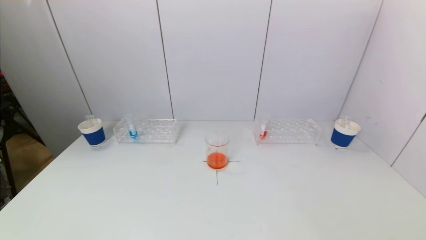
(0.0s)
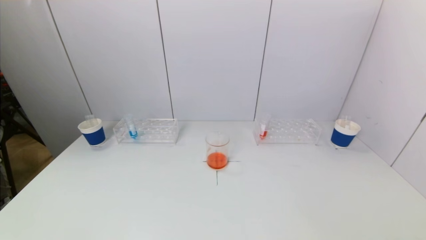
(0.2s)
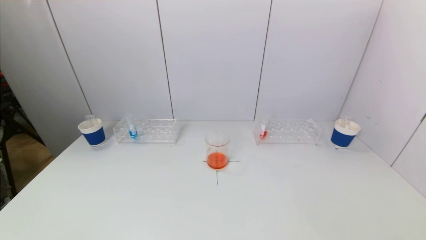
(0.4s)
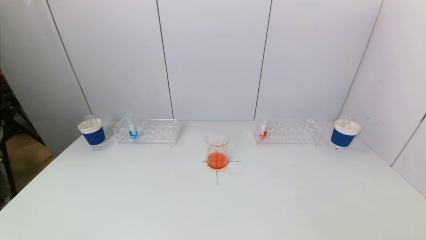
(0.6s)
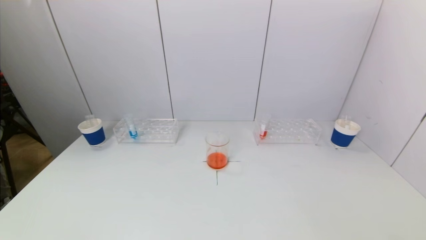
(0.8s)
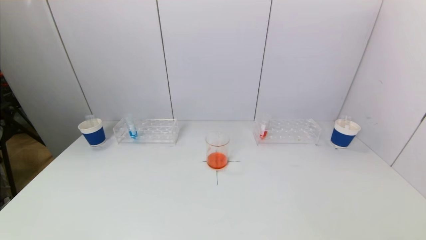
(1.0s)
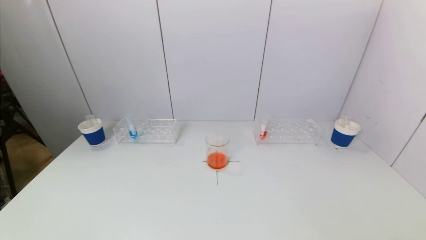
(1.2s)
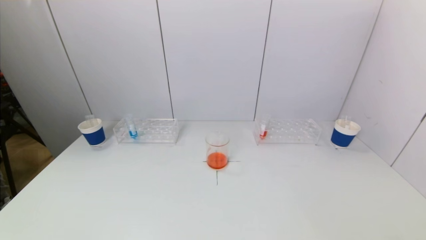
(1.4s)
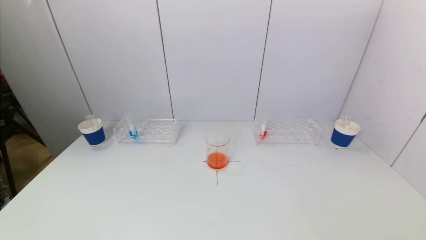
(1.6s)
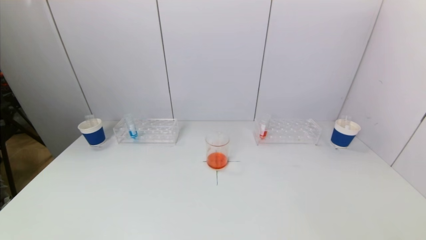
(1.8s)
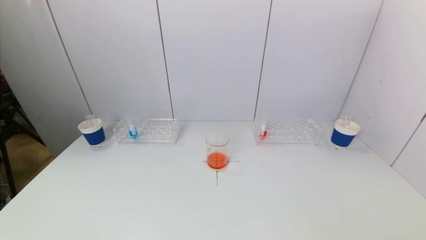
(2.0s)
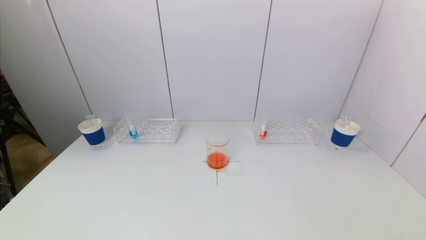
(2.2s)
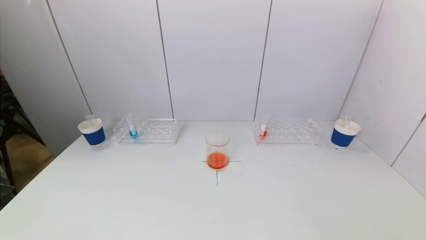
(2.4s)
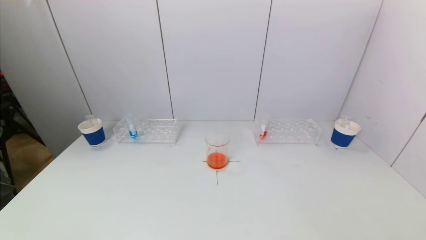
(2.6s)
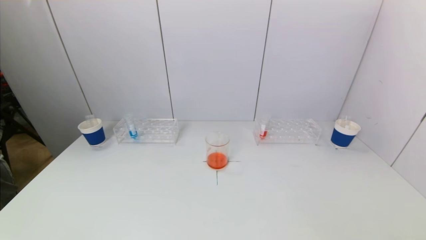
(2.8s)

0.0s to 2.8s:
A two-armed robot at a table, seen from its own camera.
Task of the whole recording: pick up a test tube with pigment on left test tube rack and a test tube with pigment on right test tube rack by grippers and pour them into the beaker.
1.4s to 2.8s: Neither gripper changes place.

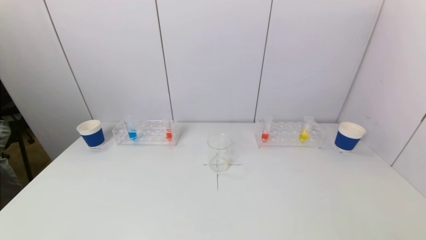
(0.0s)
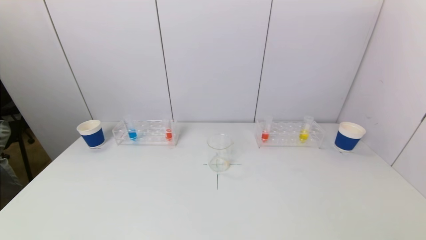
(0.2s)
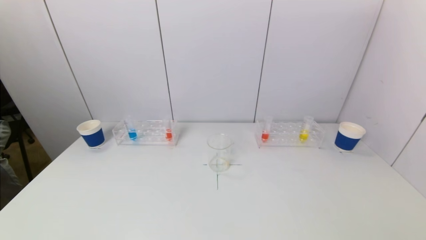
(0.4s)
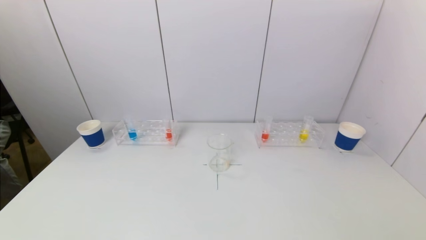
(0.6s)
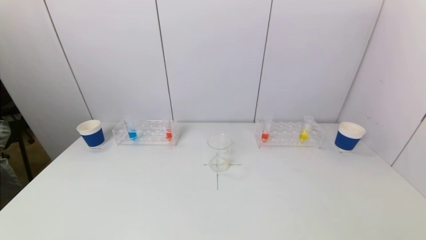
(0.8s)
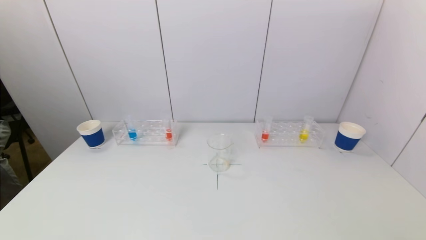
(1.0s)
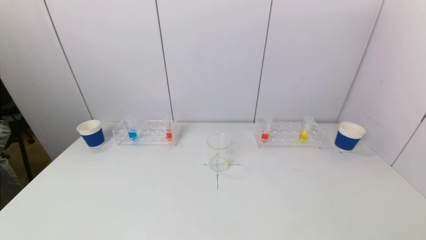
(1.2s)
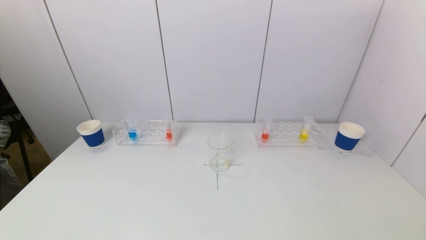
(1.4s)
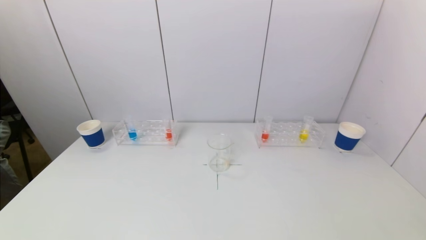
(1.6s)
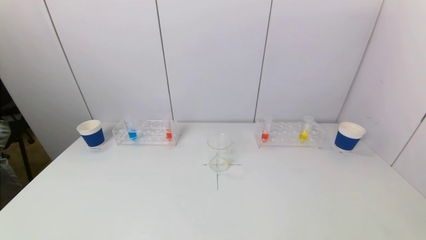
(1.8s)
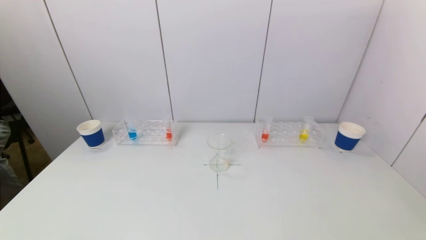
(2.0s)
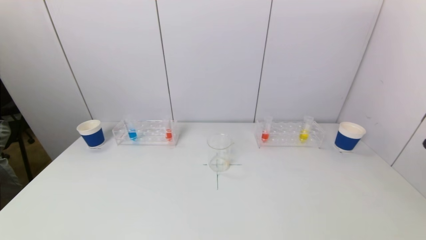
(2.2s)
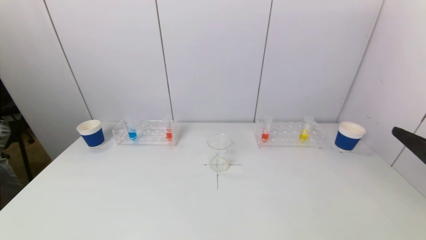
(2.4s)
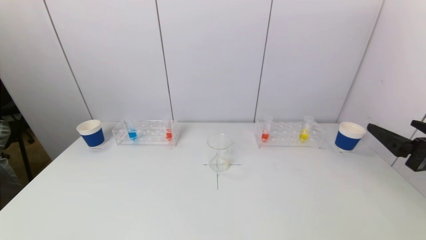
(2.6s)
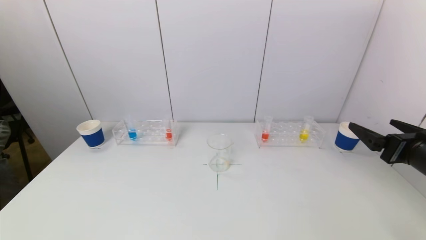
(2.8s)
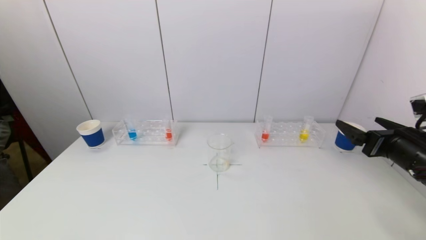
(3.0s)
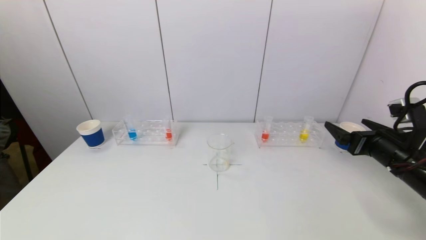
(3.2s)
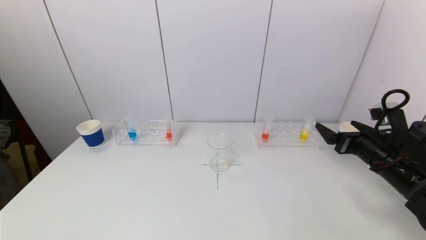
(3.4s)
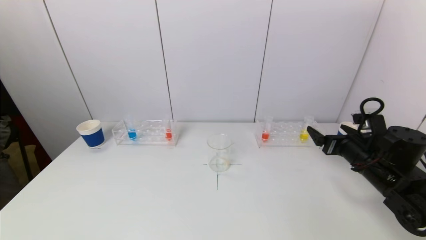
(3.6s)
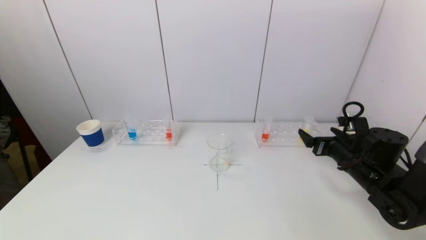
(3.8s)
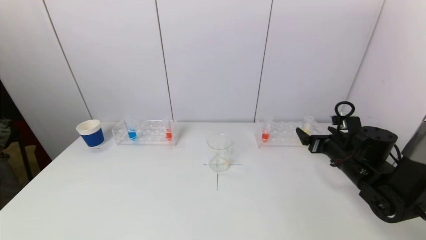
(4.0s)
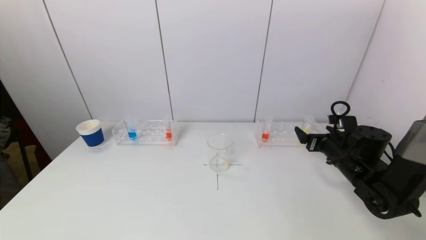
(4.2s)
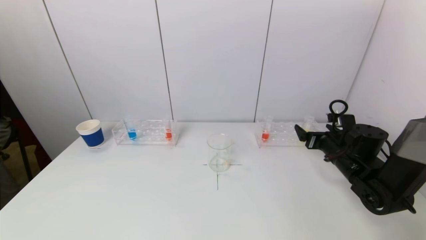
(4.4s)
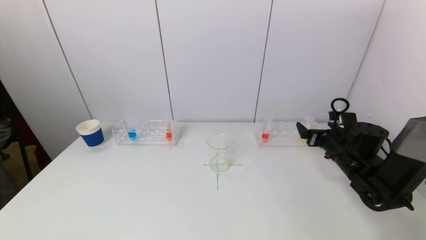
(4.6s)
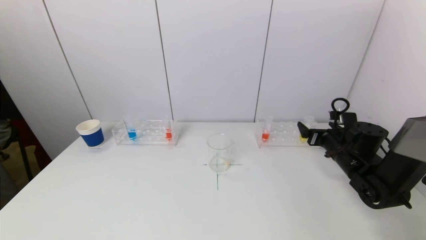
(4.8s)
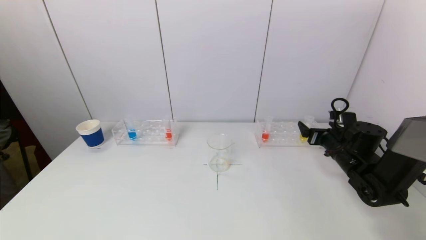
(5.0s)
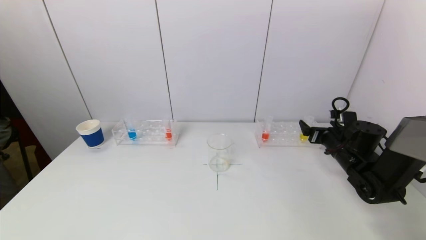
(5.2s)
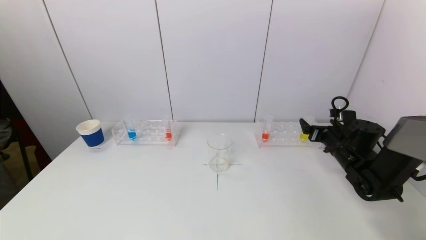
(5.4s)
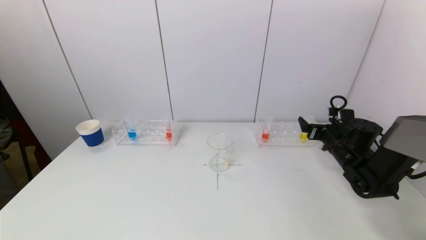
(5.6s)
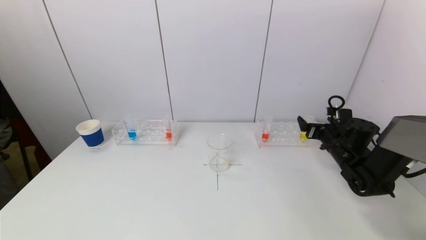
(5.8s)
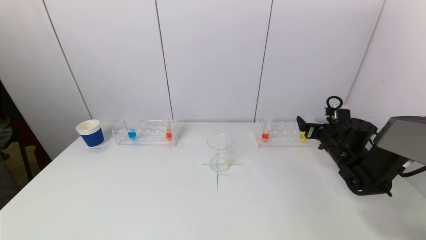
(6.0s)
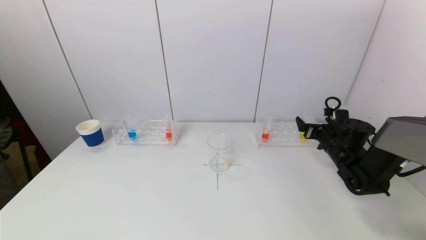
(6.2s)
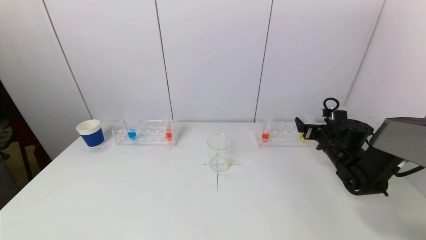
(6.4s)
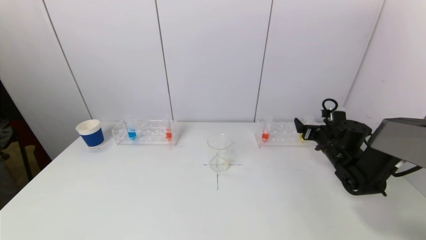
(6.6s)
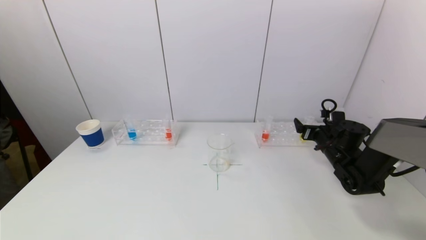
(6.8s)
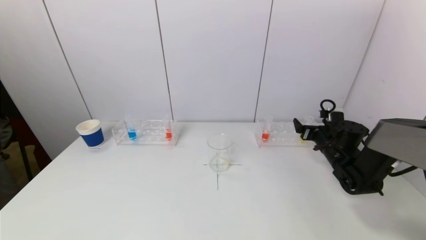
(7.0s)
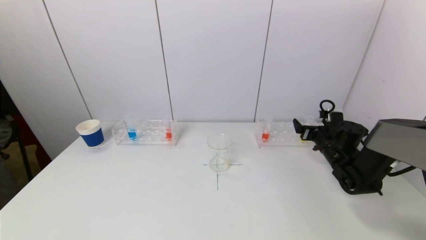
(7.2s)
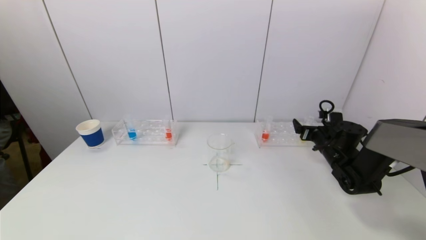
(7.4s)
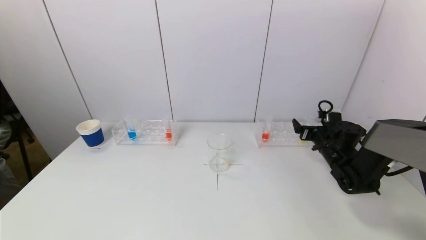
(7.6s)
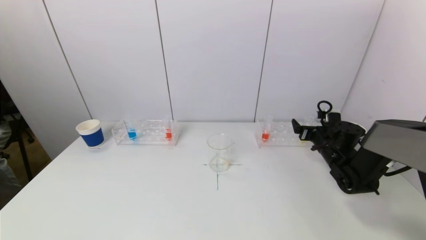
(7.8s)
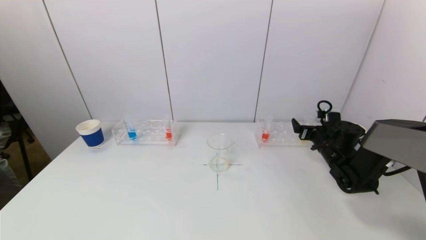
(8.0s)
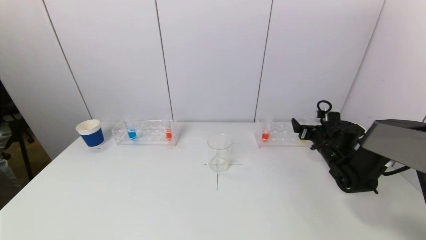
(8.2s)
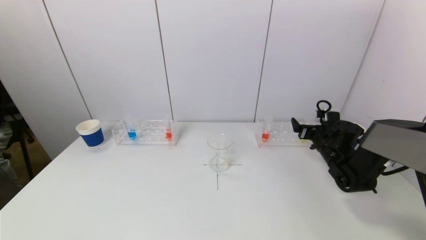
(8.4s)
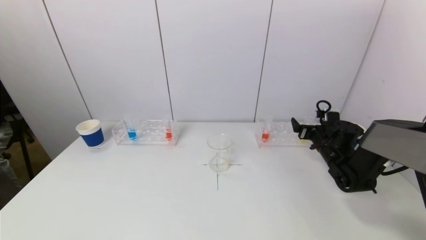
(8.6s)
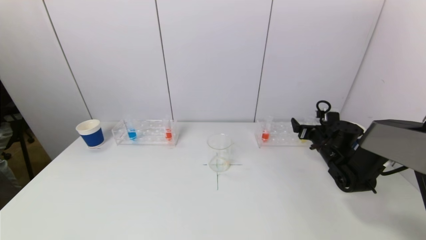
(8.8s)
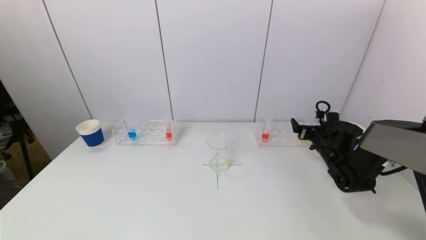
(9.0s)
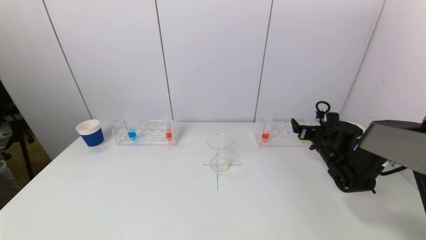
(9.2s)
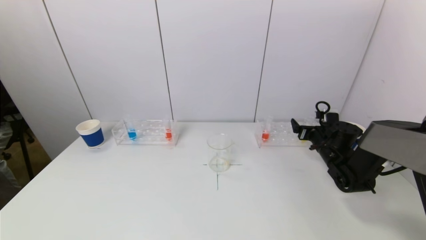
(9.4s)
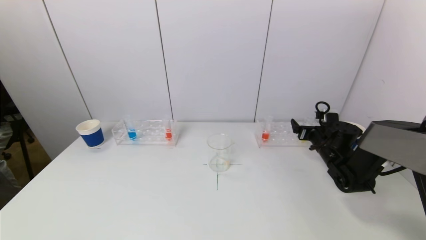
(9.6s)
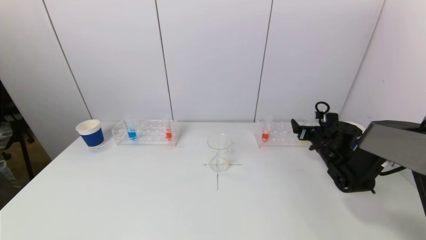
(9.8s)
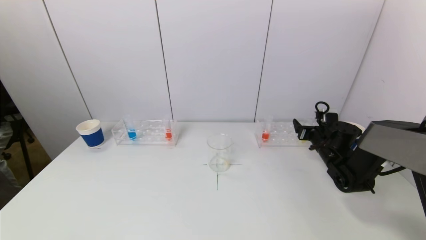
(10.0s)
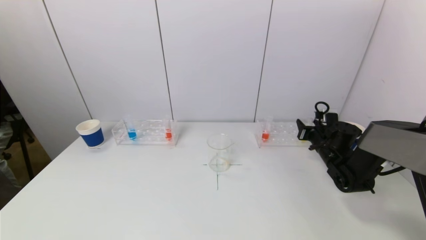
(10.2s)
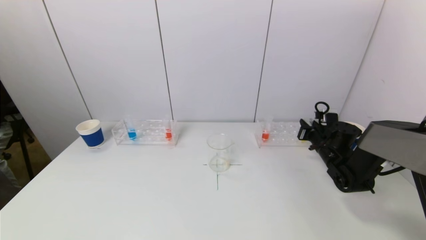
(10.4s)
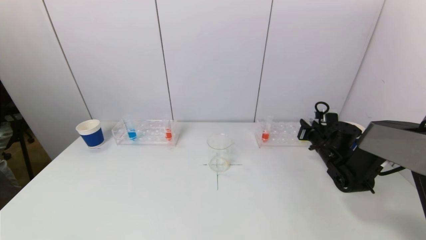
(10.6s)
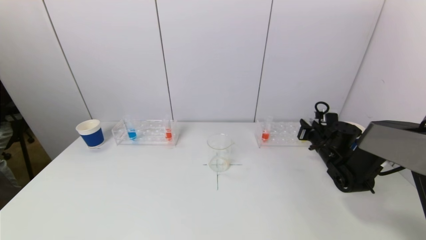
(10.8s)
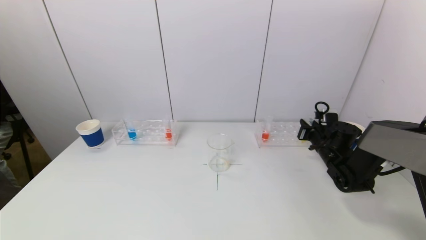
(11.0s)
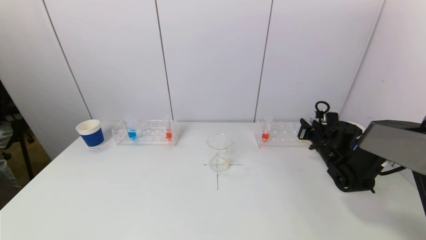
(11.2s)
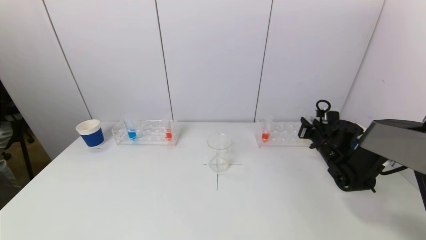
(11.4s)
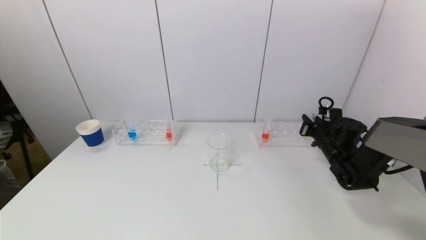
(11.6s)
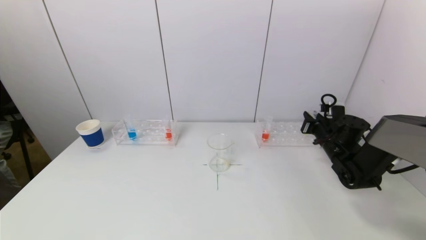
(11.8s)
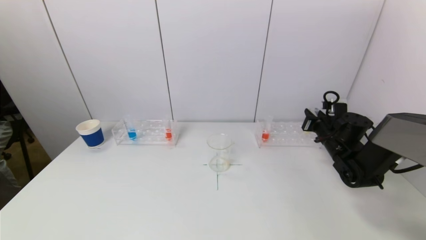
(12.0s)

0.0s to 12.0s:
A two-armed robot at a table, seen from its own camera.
Task of the whole recording: pick up a test tube with pigment on left test tube rack and a test tube with pigment on right test tube rack by grippers and pour them into the beaker.
Step, 0.0s to 10.6s: Grasp the yellow reagent with the right gripper.
1.6s to 3.0s: The right gripper travels forward by some 25 cm.
3.0s to 4.4s: The right gripper is displaced forward and downward by about 15 cm.
4.4s to 6.0s: The right gripper shifts approximately 5 cm forward.
6.0s to 7.6s: The grippers make only small movements.
7.6s to 9.0s: The two grippers keep their place.
9.0s to 10.4s: The right gripper closes.
10.4s to 12.0s: The grippers stay close to where they were, moving slightly.

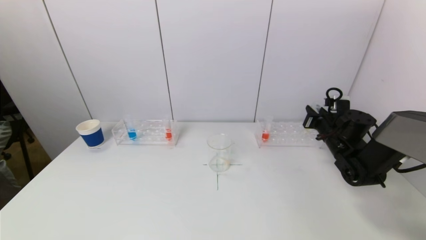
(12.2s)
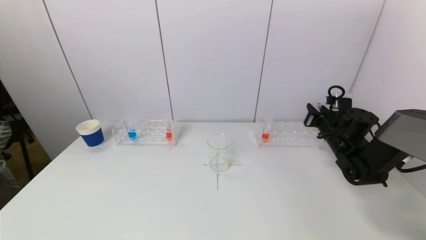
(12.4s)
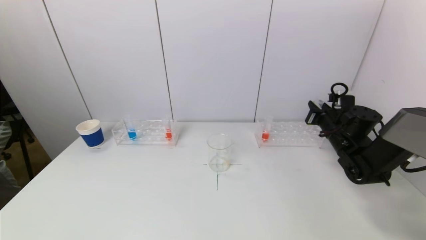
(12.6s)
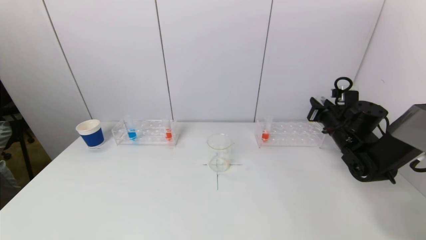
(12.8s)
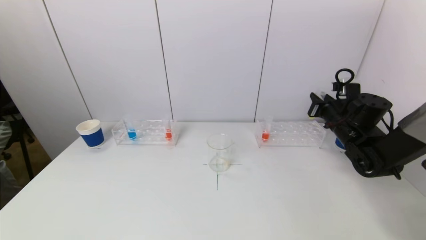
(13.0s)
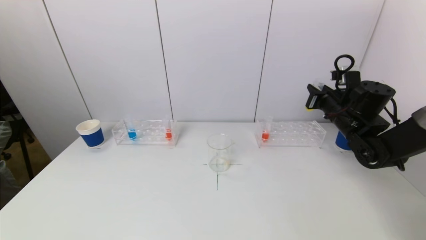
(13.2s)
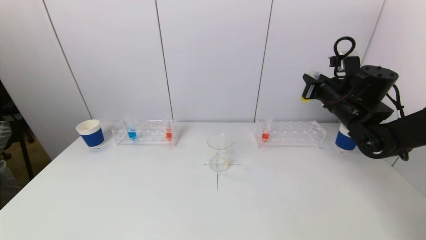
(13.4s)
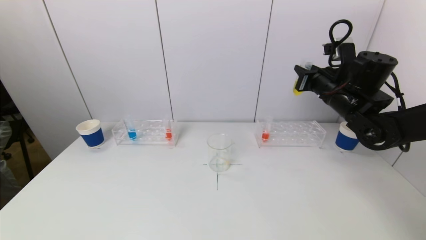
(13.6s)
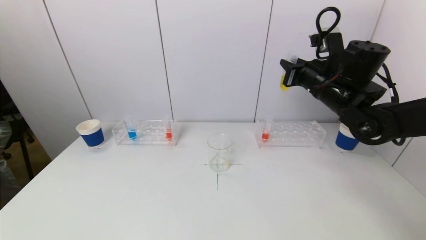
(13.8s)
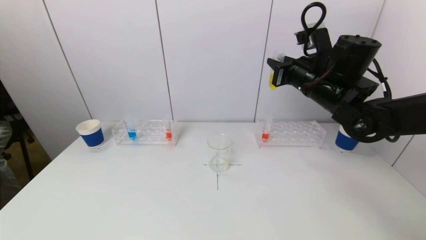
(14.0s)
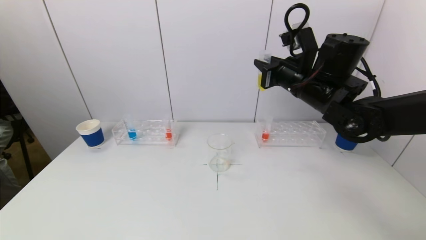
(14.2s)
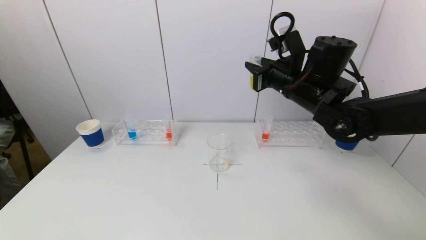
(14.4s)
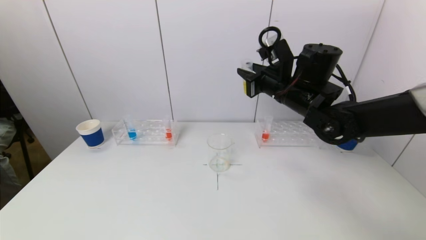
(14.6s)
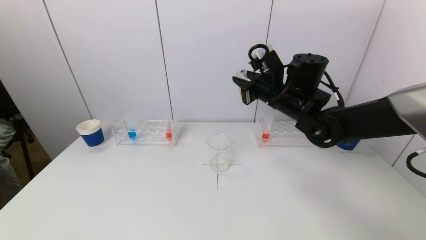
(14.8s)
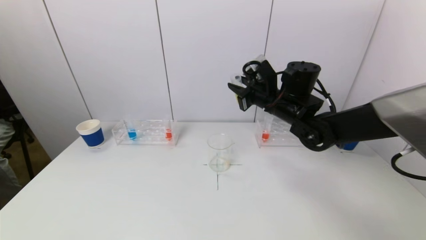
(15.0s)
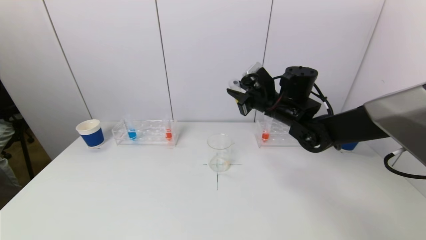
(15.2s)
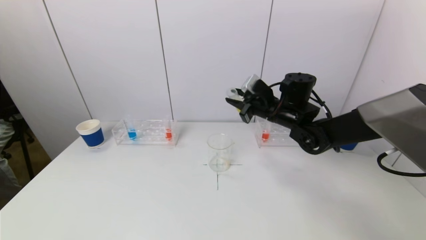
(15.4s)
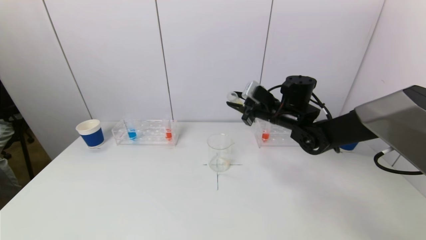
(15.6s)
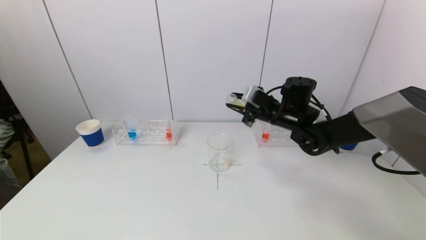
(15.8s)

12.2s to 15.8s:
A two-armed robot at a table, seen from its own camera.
Task of the whole recording: pick up a test tube with pigment on left test tube rack and a test tube with pigment on right test tube rack by grippers and pour them into the beaker.
12.2s to 14.0s: The right gripper heads upward and to the left, covering approximately 20 cm.
14.0s to 15.8s: The right gripper goes roughly 10 cm downward.
